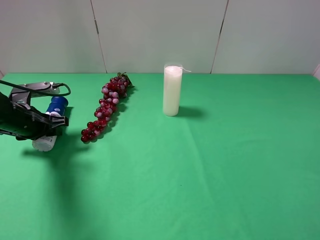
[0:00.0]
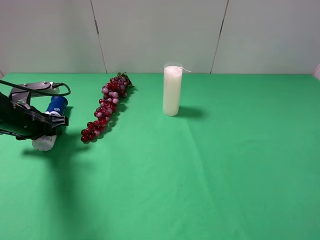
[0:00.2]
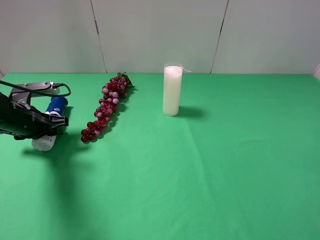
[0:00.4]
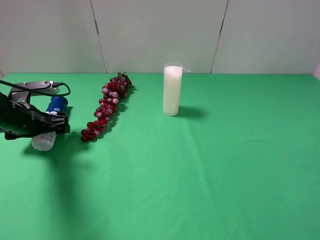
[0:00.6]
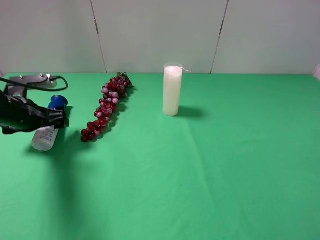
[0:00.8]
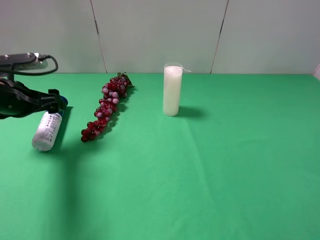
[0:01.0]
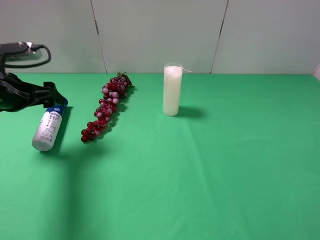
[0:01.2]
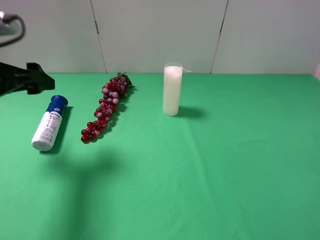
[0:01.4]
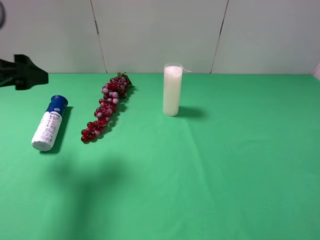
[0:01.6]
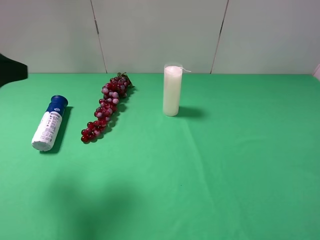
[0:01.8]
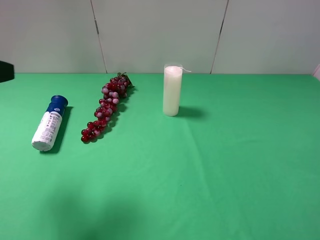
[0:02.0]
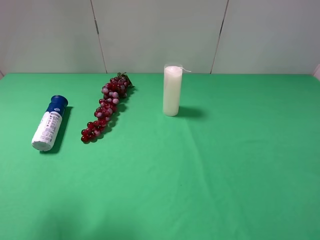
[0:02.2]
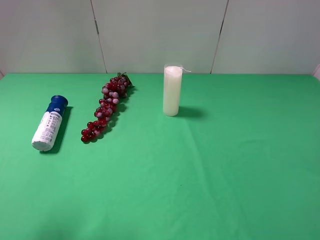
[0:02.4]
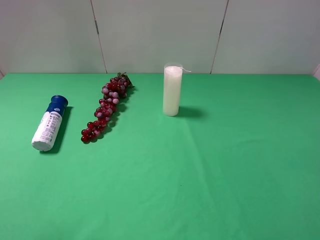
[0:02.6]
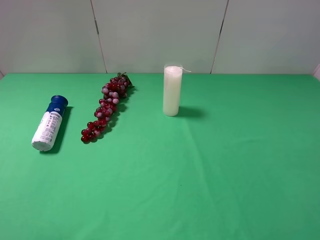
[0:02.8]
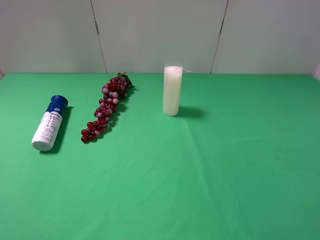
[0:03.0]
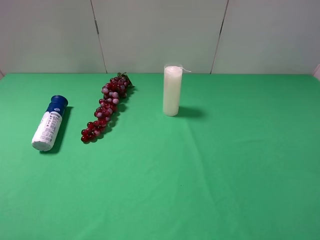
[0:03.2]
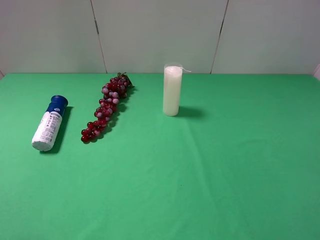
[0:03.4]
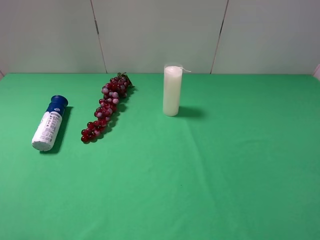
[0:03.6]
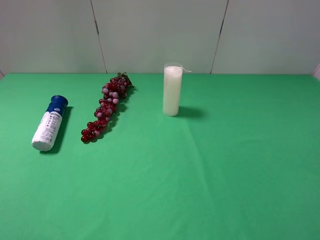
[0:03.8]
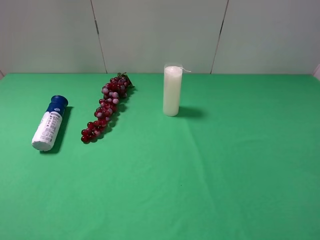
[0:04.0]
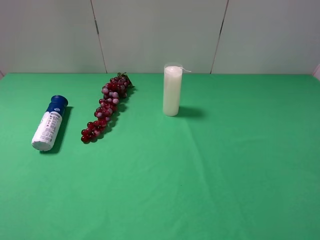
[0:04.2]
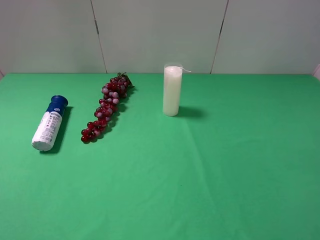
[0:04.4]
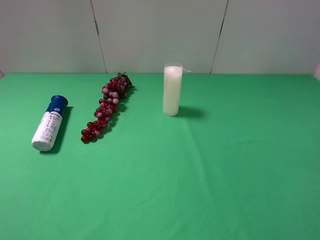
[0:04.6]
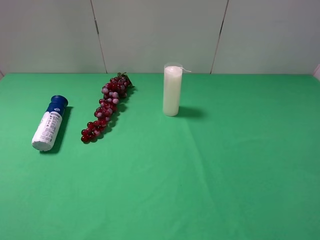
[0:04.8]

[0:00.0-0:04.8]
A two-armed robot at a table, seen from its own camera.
Task of the whole recording: use the right gripper to pick up the item and transfer it from the right gripper to the left gripper.
0:00.0 to 0:01.6: The left gripper moves upward and backward, approximately 20 cm, and opens up.
0:01.6 to 0:03.2: The left gripper travels backward by about 20 cm.
